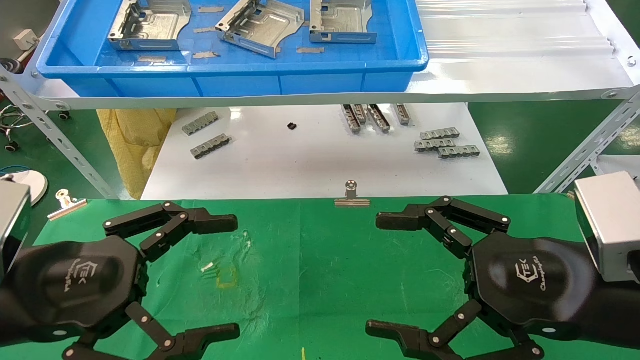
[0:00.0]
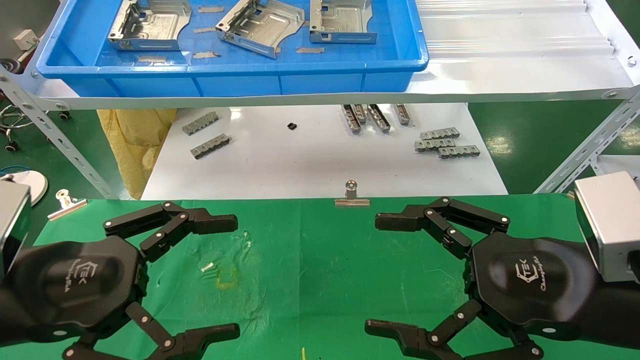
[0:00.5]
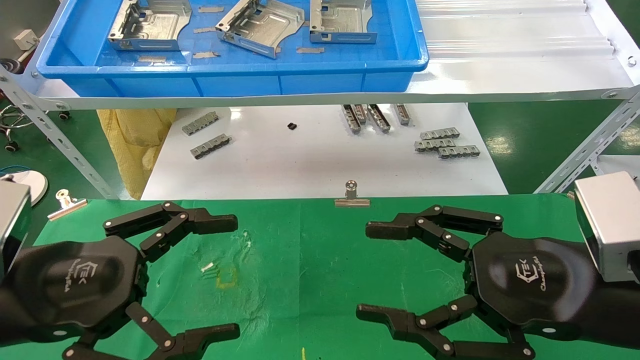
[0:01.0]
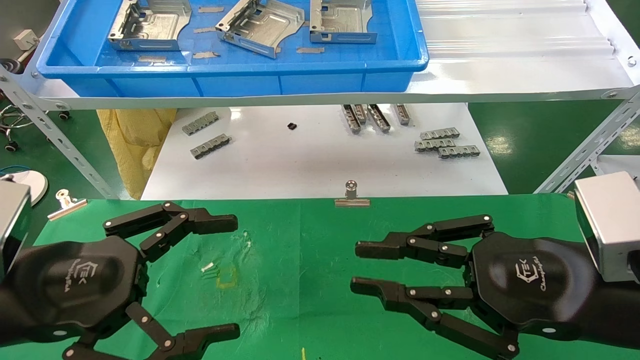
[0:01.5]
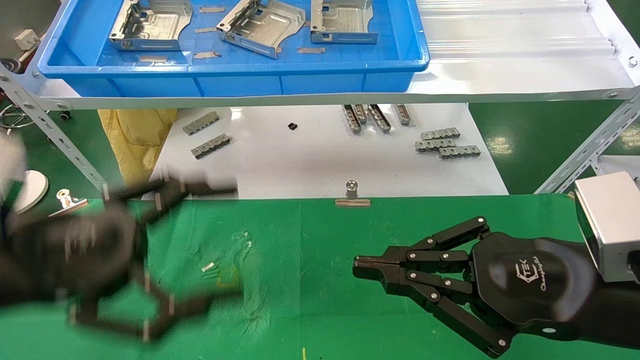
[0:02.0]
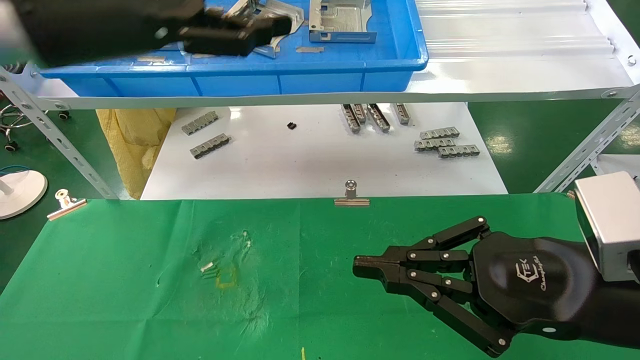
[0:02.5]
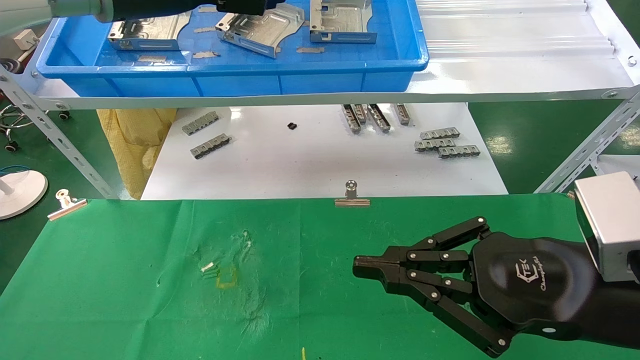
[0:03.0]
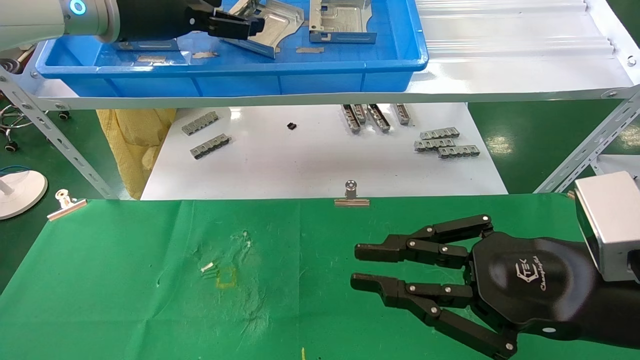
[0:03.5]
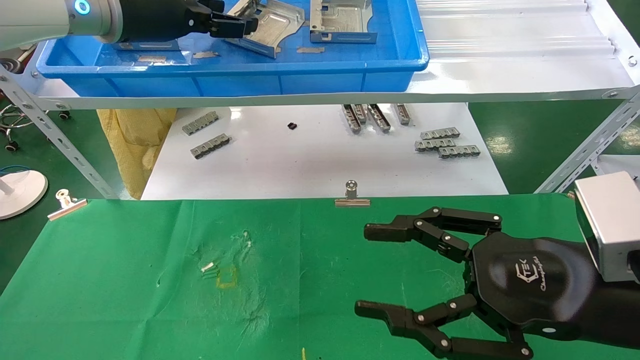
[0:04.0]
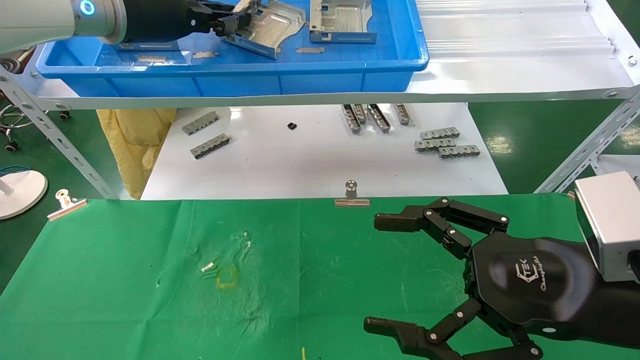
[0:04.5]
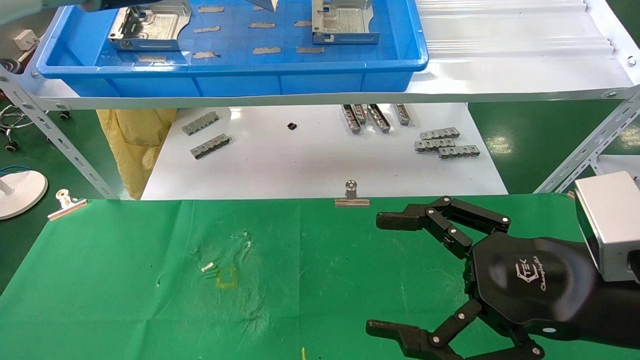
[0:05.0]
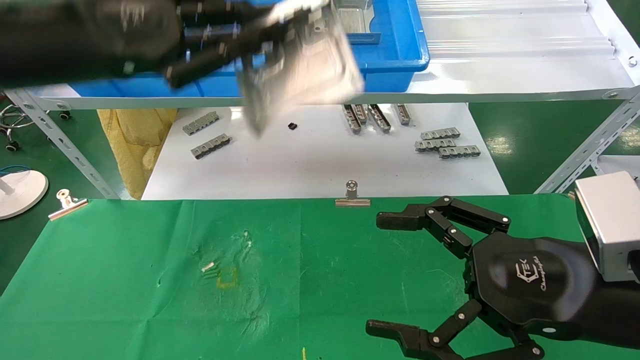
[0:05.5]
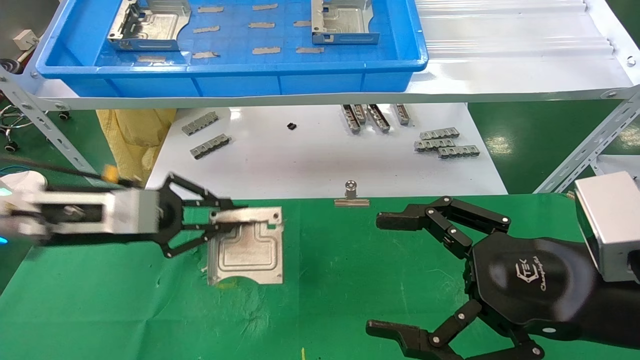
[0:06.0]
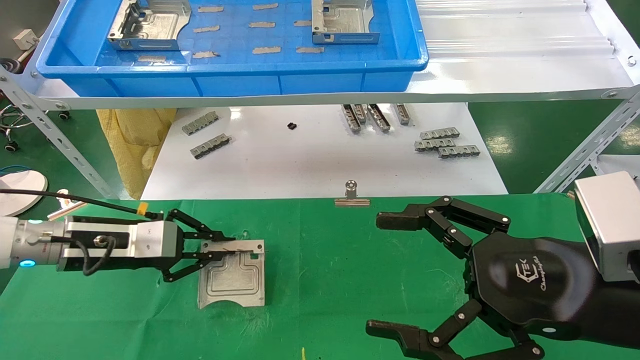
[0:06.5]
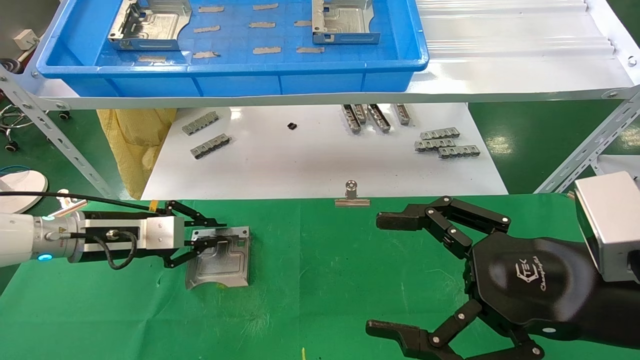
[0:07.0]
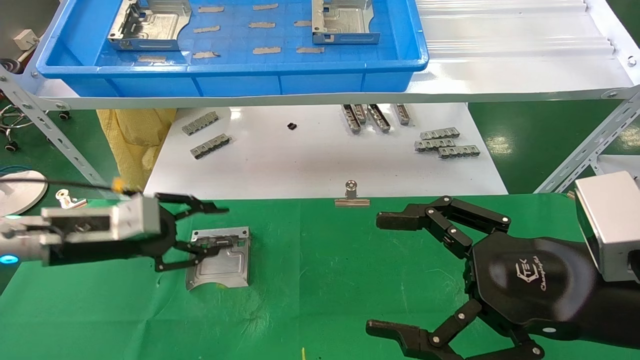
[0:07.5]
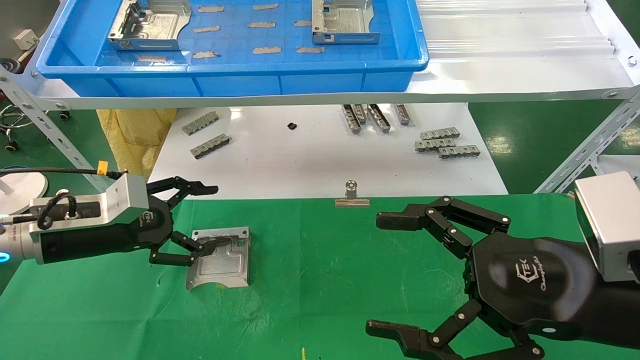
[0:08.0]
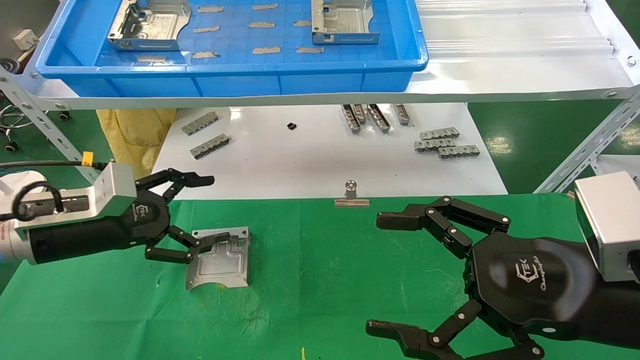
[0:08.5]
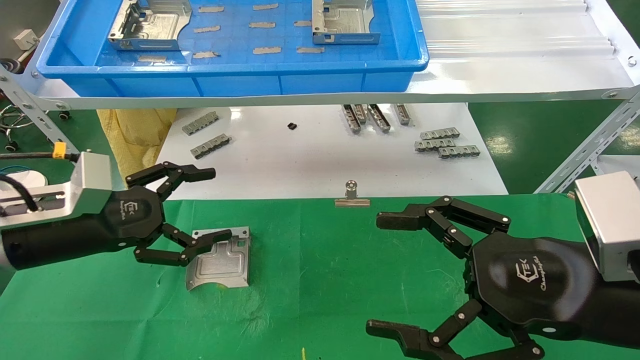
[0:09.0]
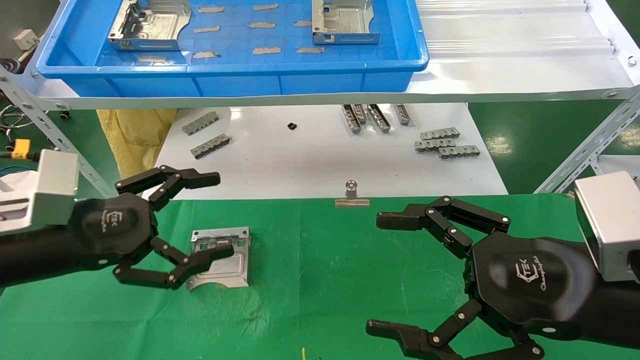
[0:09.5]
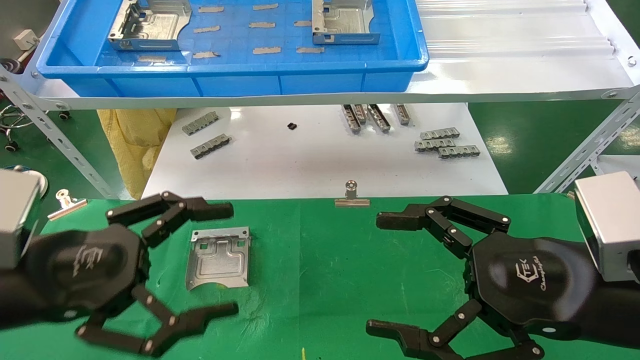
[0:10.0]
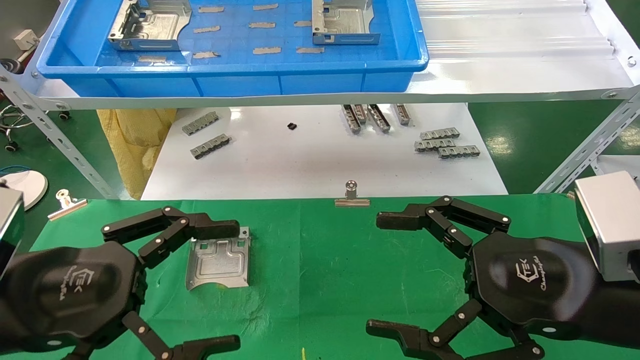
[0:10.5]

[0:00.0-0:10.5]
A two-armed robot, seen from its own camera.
Task of the whole recording: use the mechanical arm to pick up the parts and place them on the table.
Step, 0:02.0 to 0:05.0: Pick up the hard drive bracket from the feeding area.
Step, 0:05.5 to 0:07.5: Place the hard drive bracket into the box.
0:00.0 to 0:02.0: The left gripper goes about 5 cm upward. The right gripper closes.
0:02.0 to 0:04.0: The right gripper opens its fingers, while the left gripper is displaced forward and upward by some 30 cm.
0:04.0 to 0:06.5: The right gripper opens up. Meanwhile the left gripper is displaced downward by approximately 30 cm, and closes up.
0:06.5 to 0:08.5: The left gripper opens its fingers.
0:08.5 to 0:10.5: The left gripper is displaced backward by roughly 15 cm.
